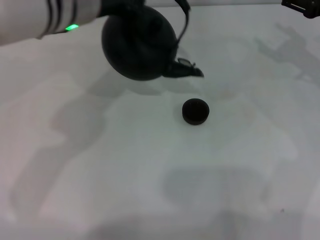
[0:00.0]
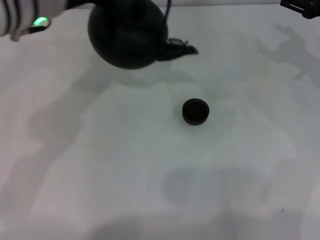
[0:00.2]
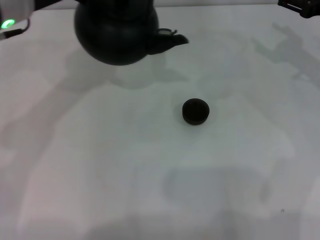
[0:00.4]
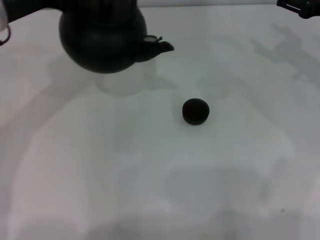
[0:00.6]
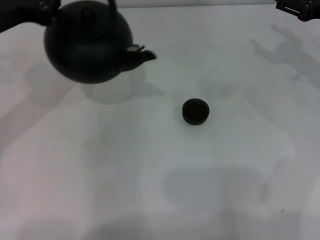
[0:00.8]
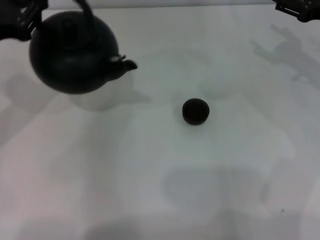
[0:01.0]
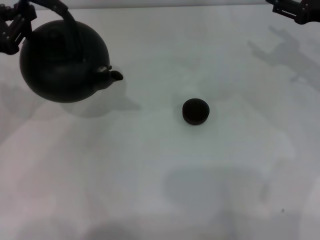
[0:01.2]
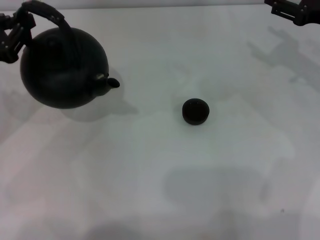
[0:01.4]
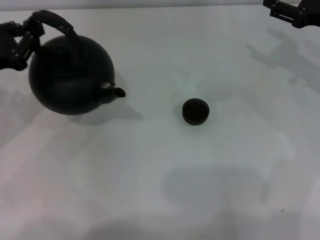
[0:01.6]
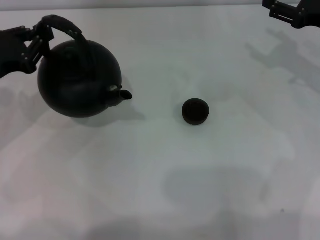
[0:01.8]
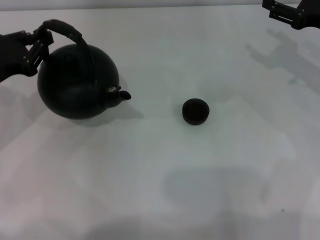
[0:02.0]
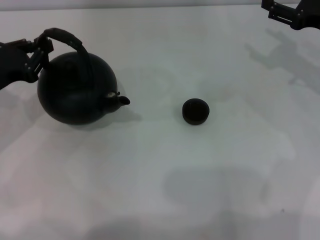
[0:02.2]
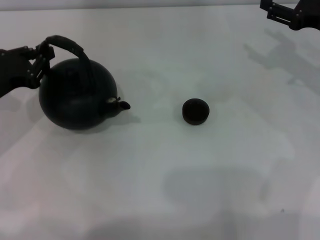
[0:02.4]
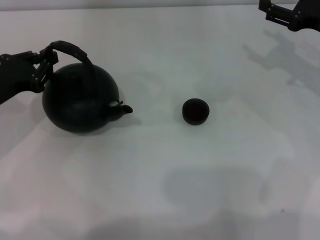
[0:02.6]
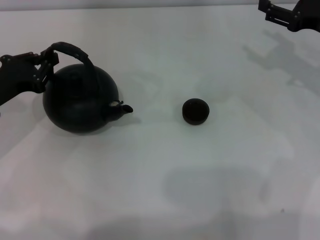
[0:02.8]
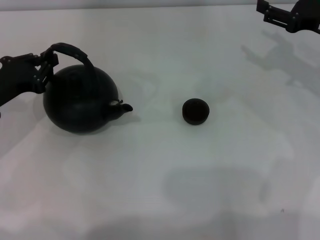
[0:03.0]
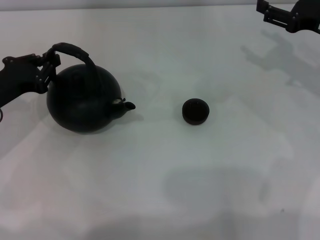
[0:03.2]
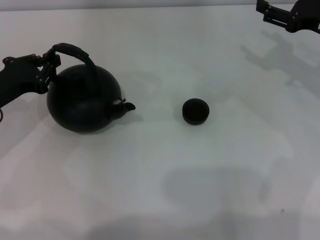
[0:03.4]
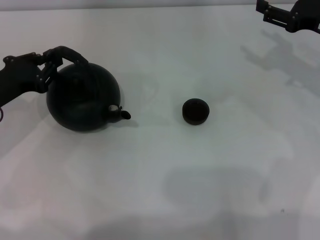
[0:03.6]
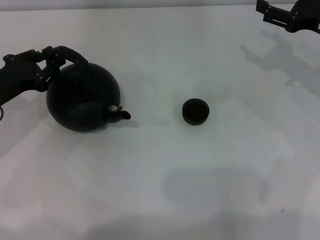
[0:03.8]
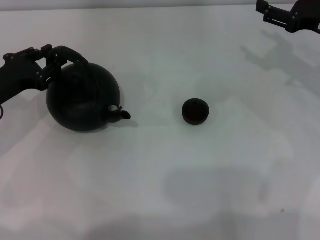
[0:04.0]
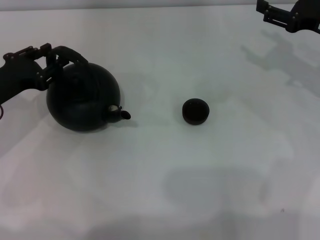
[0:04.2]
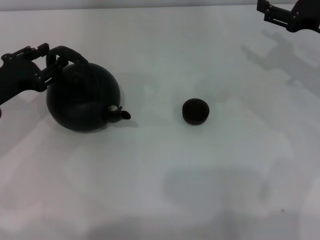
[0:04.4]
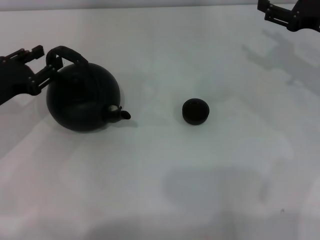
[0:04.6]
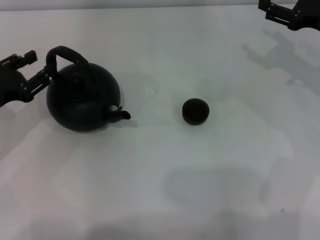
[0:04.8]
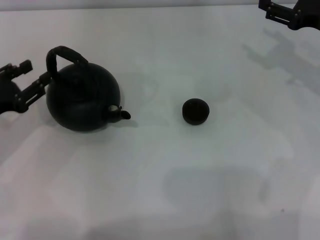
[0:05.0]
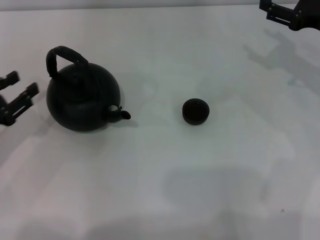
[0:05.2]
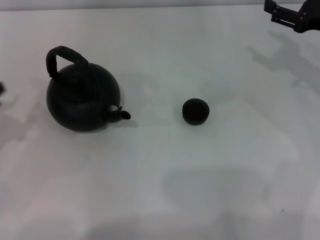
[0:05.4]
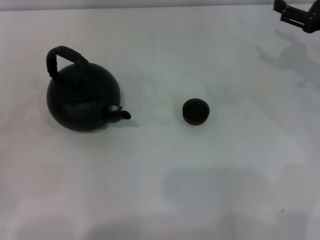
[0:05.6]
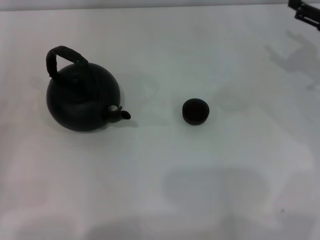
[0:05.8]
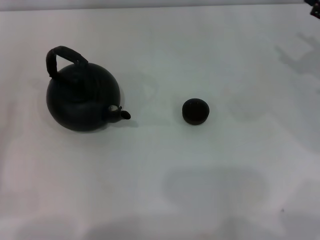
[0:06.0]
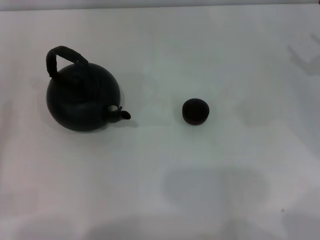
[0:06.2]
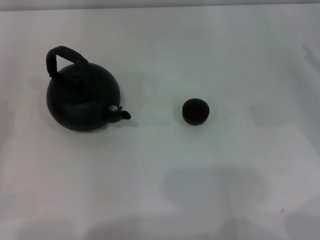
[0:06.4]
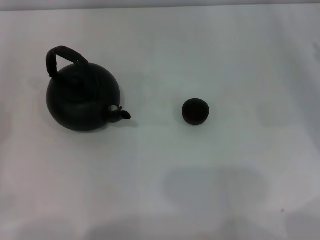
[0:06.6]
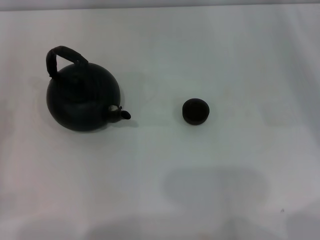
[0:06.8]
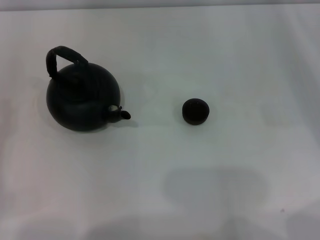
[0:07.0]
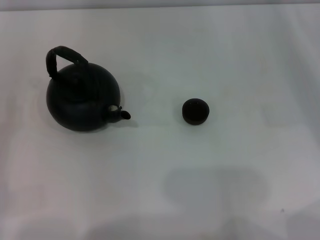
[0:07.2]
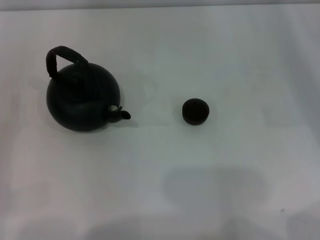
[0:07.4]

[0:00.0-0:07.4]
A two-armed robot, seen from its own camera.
Task of the whole recording: Grasp the handle of the teapot with one hand and pour tea into the teacup.
Step, 0:00.0 to 0:04.8: Put down the teapot with the left gripper.
0:00.0 to 0:01.4: The left gripper goes approximately 20 cm to the left and downward.
0:01.4 to 0:03.0: The left gripper goes roughly 5 cm downward.
0:03.0 to 0:04.4: The left gripper opens.
0:04.4 to 0:06.0: The left gripper travels backward and to the left by approximately 20 cm, while the right gripper shifts by about 5 cm.

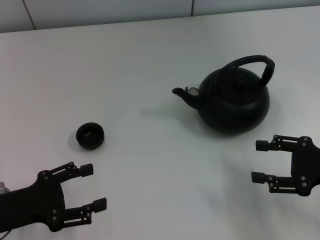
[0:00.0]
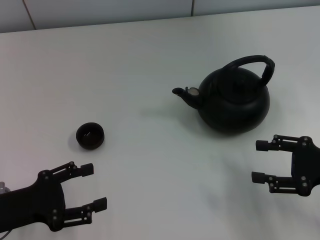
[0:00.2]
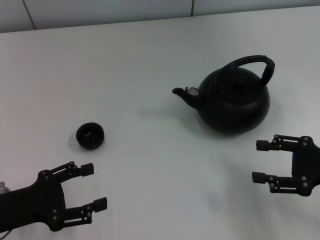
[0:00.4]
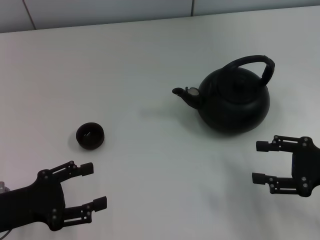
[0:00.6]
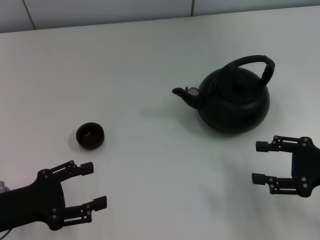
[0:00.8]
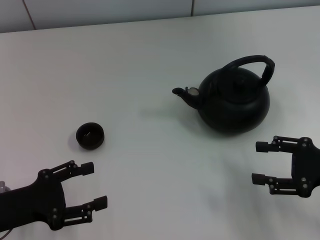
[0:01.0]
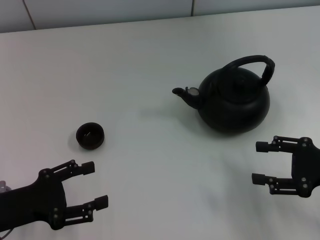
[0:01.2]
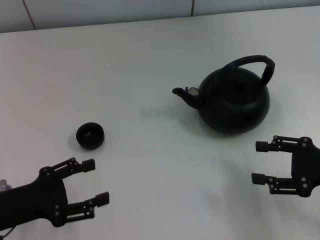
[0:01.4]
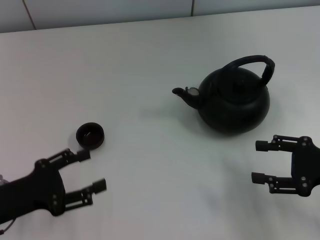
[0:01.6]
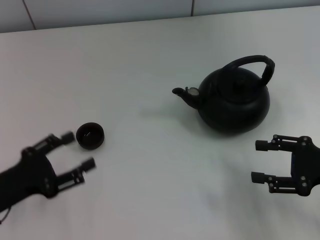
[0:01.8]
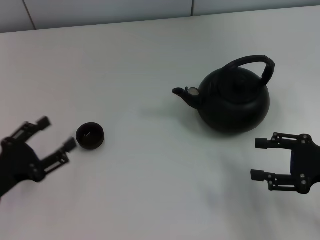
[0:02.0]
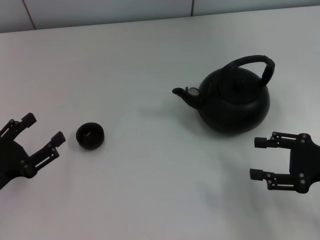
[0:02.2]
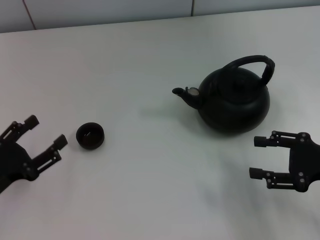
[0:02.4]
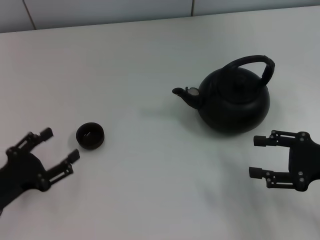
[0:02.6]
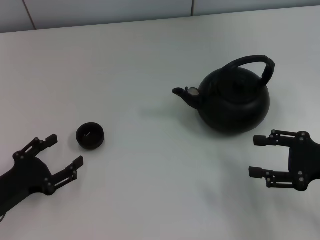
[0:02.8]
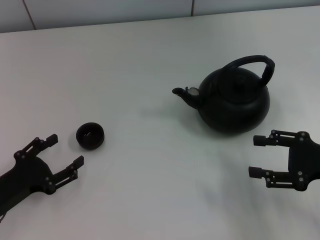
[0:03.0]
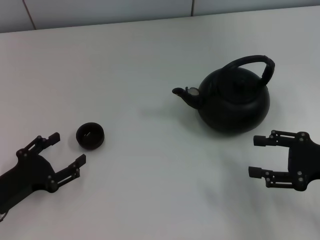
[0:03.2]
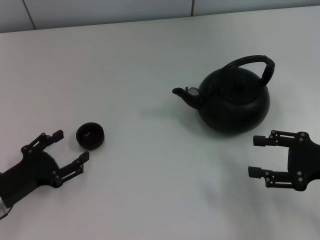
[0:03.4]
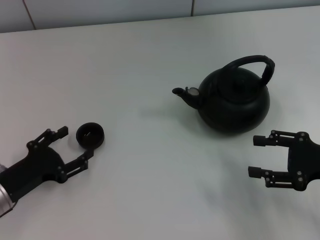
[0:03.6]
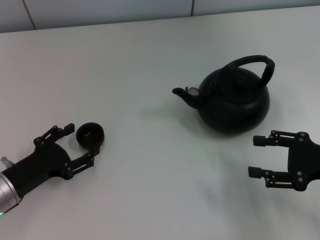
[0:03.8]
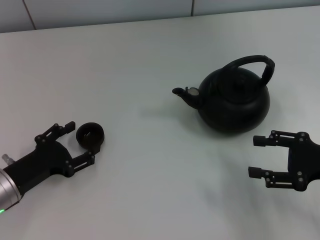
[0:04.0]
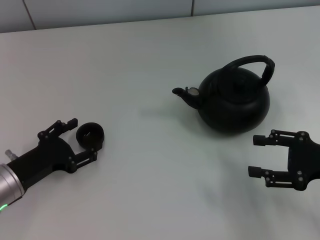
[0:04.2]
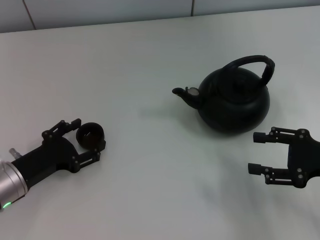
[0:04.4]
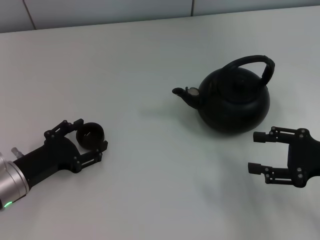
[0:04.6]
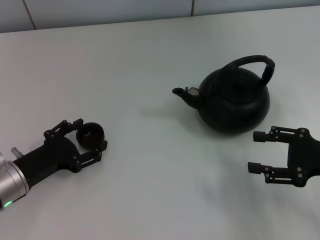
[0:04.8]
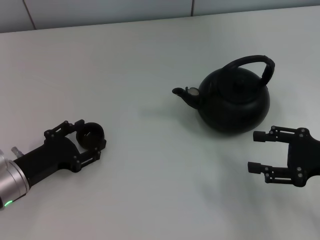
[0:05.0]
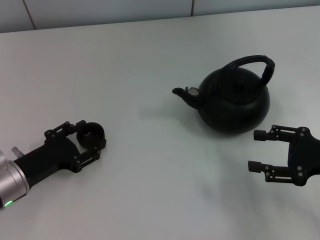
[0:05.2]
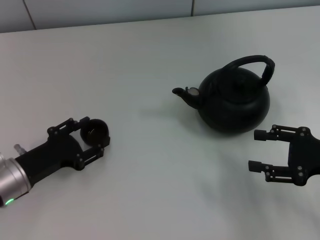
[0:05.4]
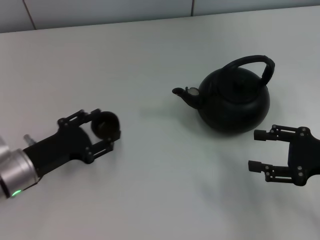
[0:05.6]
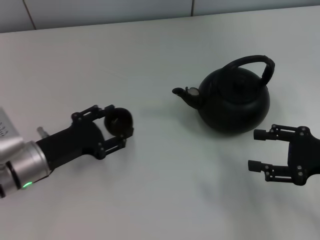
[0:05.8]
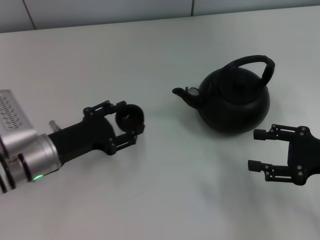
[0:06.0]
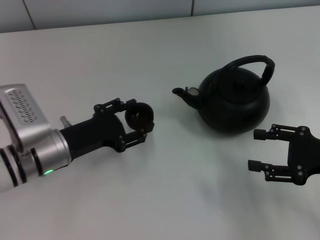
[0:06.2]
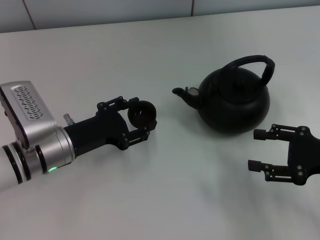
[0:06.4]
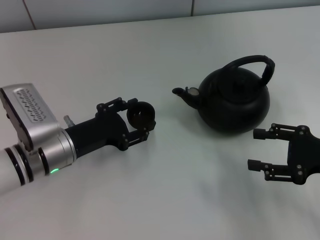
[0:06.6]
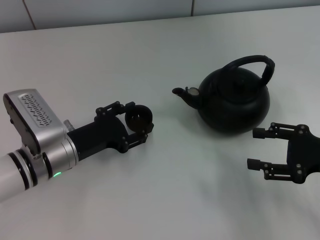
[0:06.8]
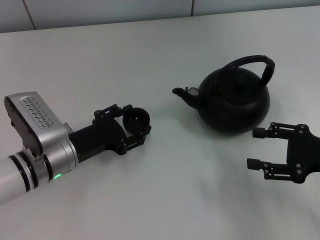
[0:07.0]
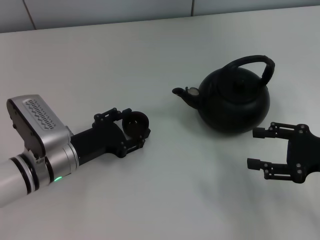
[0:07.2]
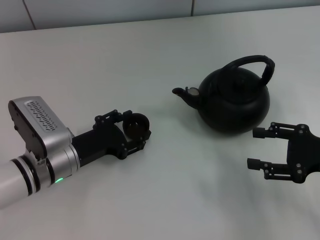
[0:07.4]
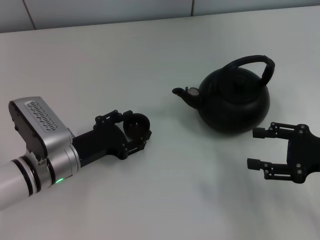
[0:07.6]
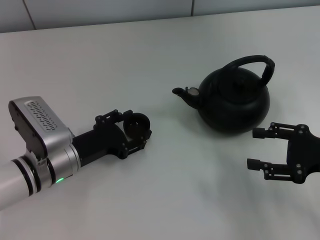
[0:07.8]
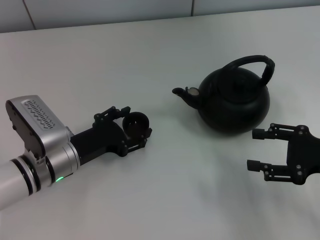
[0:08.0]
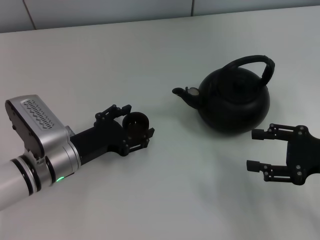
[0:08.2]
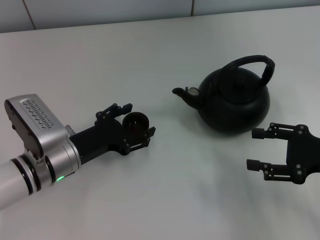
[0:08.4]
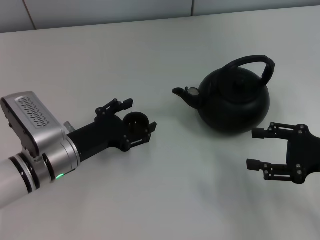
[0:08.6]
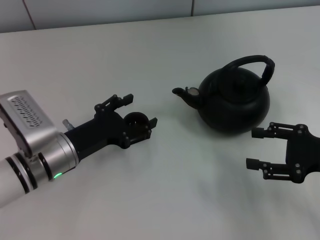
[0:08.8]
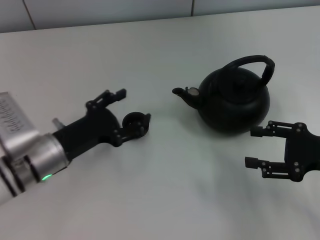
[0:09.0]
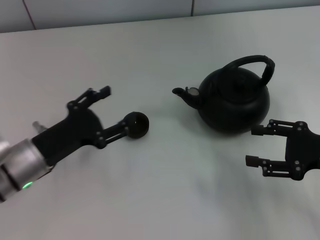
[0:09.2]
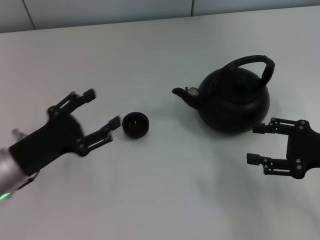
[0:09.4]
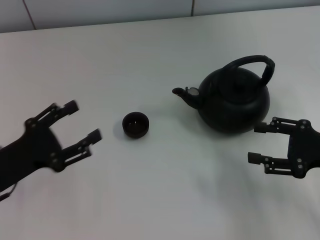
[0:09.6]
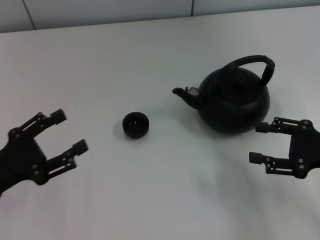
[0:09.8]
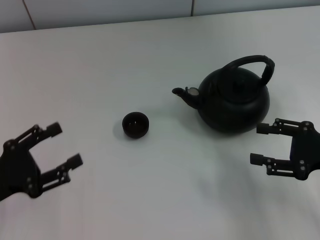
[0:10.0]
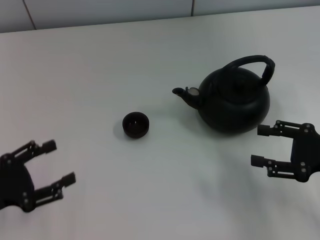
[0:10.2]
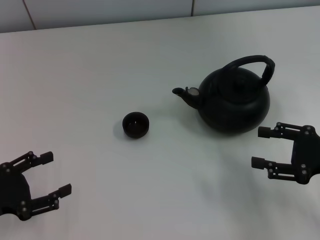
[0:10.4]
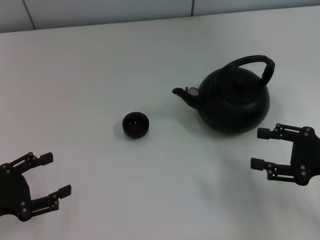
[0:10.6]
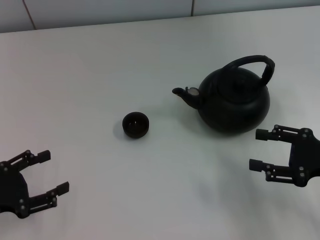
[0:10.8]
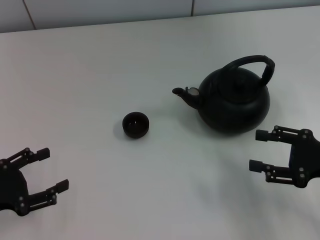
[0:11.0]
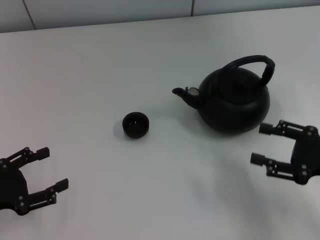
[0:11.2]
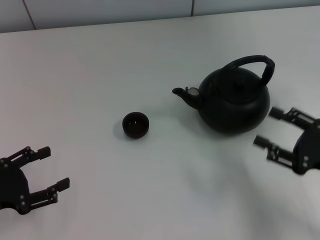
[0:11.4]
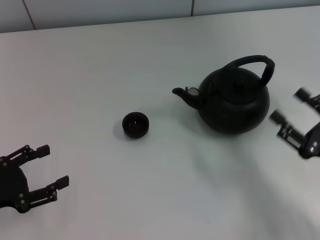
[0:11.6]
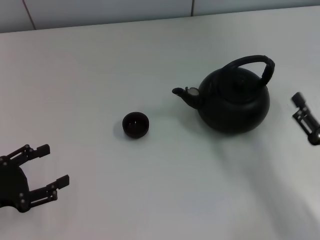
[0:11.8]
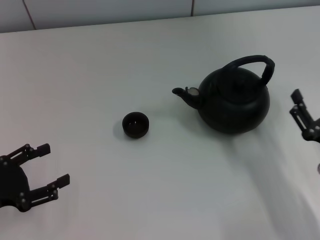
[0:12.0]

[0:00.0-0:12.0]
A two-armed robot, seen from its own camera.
Task of the whole recording: Grasp the handle of the teapot with one hand and pour tea into the teacup.
Step, 0:00.0 to 0:05.4: Pick up the teacup with the left gripper.
Step, 0:05.6 to 0:08.8: Place the teacup in the center of view with the left gripper.
0:00.0 to 0:01.6: The grippers move only a little.
0:03.0 to 0:04.4: The left gripper shifts by about 5 cm.
0:04.4 to 0:06.0: The left gripper is displaced to the right by roughly 5 cm, and closes its fingers.
0:06.0 to 0:07.6: The grippers move only a little.
0:07.6 to 0:09.0: The left gripper opens up.
0:09.0 to 0:10.4: The left gripper heads to the left and backward, covering roughly 15 cm.
0:10.4 to 0:12.0: The right gripper moves downward and to the left, roughly 10 cm.

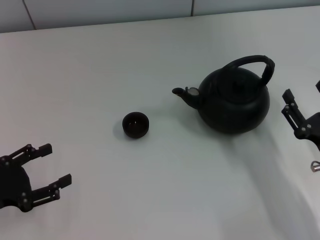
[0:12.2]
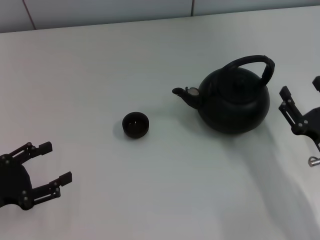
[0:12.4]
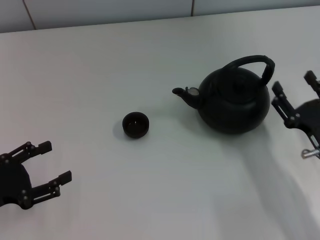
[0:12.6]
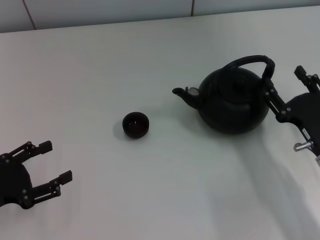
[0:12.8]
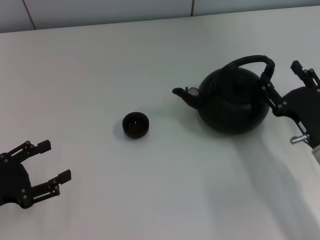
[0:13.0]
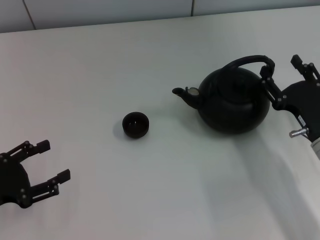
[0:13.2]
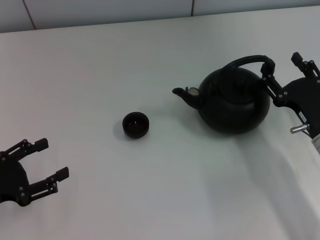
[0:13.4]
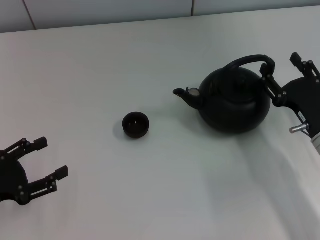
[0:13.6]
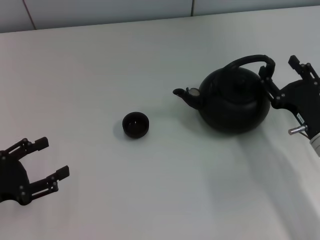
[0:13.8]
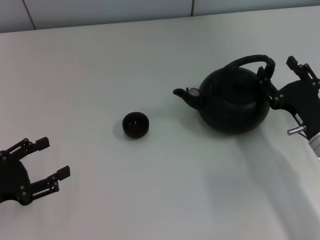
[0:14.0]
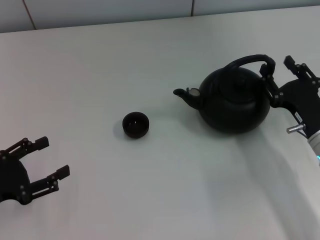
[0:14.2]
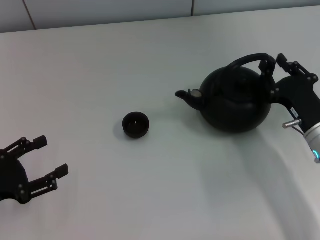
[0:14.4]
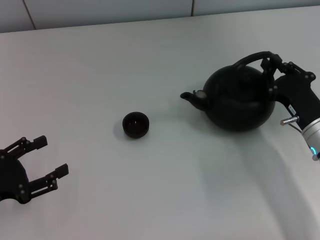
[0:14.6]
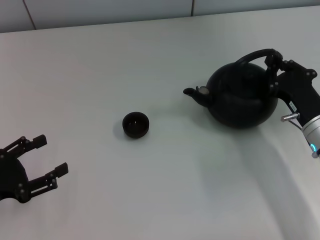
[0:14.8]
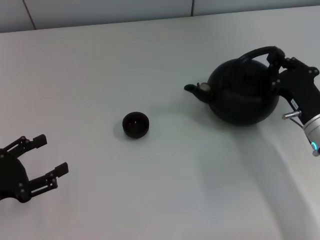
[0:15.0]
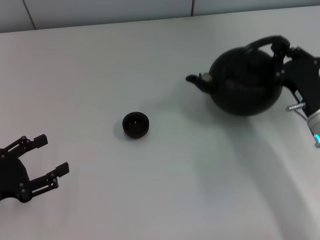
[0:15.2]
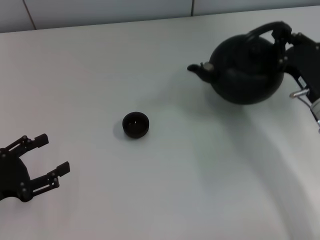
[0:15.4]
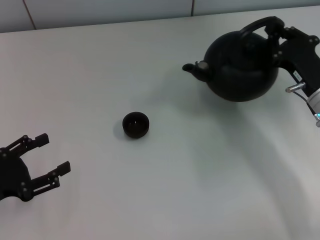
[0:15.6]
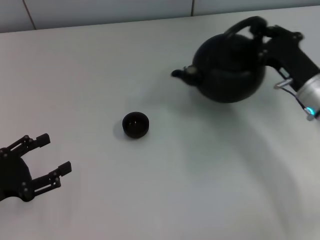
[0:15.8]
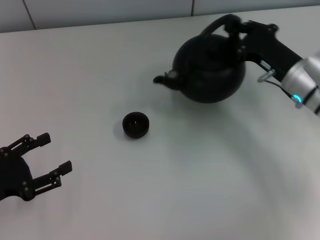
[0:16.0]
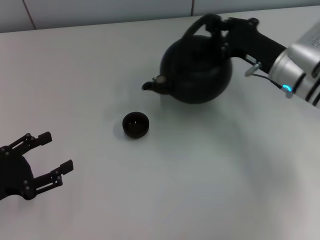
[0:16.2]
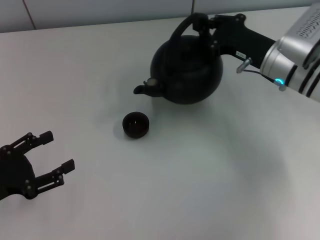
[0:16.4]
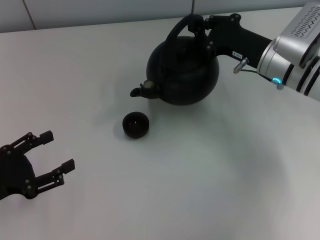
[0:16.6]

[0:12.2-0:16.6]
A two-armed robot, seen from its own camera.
Task of the whole recording: Grasp the handle of the teapot with one hand and pour tea into the teacup.
Step, 0:12.2 to 0:15.4: Pick up the teapot with the right gripper.
0:12.2 to 0:13.6: The right gripper moves forward, approximately 5 cm.
0:13.6 to 0:15.2: The right gripper closes its fingers.
0:15.2 to 0:16.6: The right gripper shifts approximately 10 cm forward and upward.
